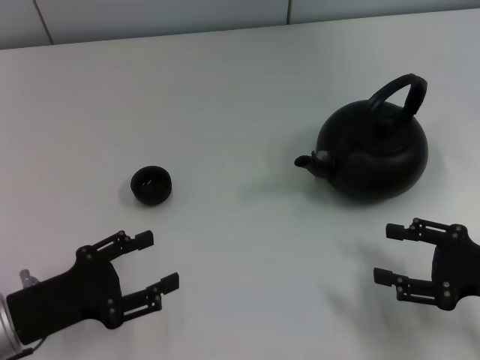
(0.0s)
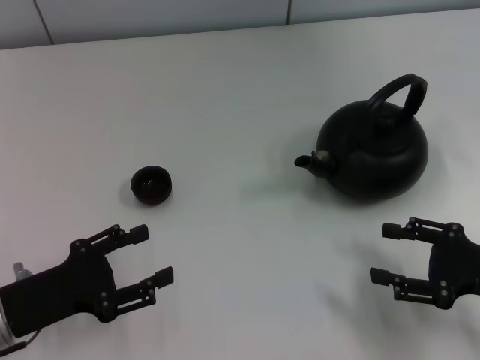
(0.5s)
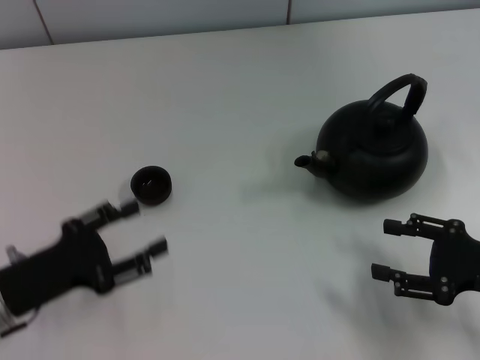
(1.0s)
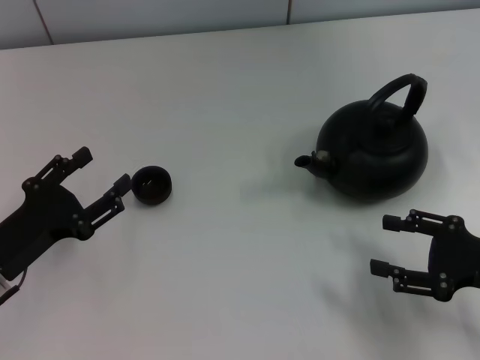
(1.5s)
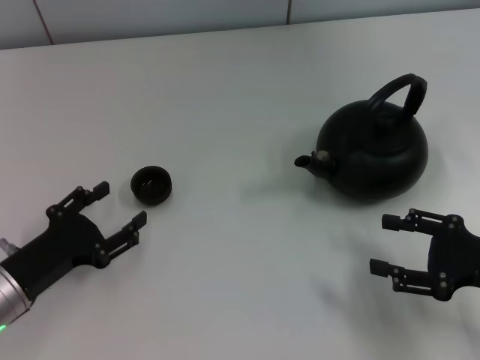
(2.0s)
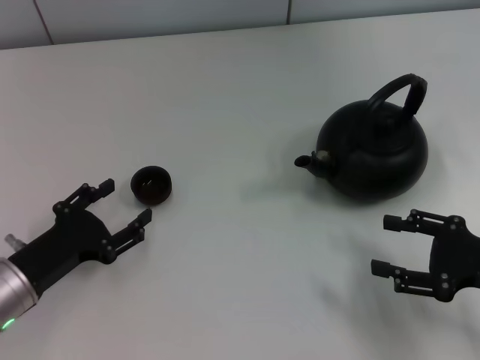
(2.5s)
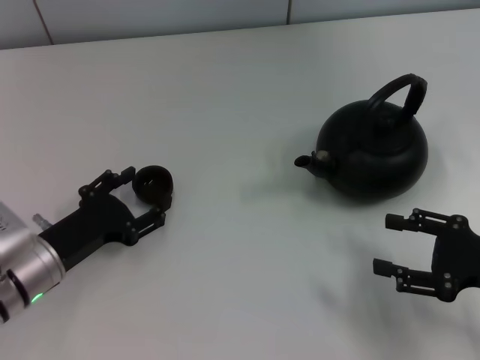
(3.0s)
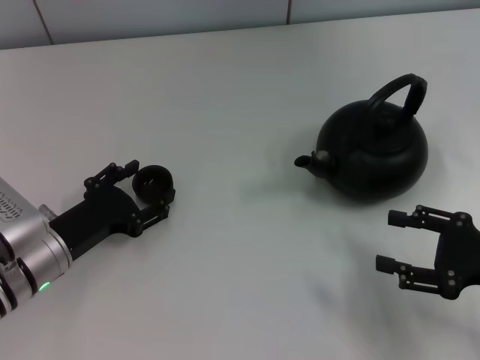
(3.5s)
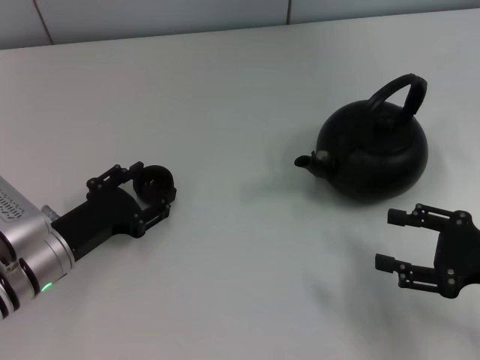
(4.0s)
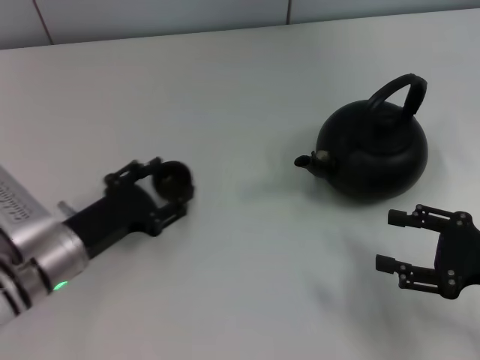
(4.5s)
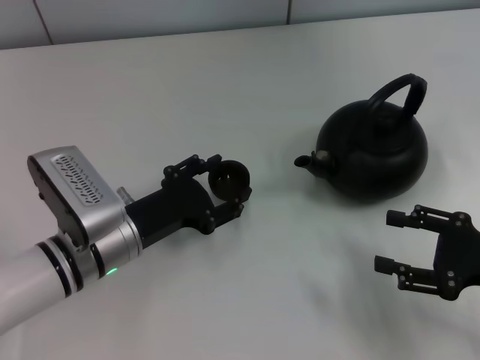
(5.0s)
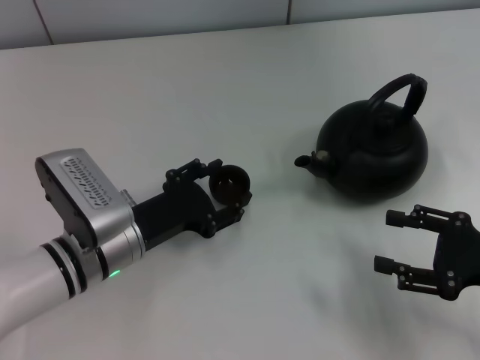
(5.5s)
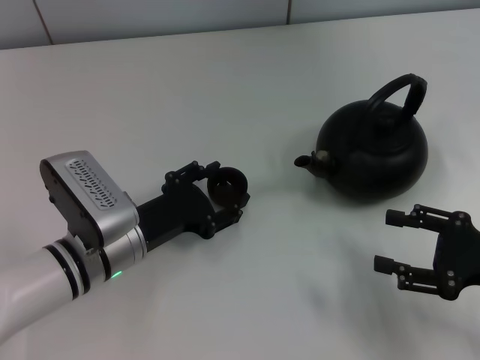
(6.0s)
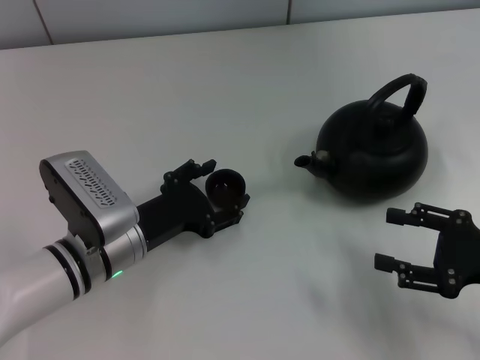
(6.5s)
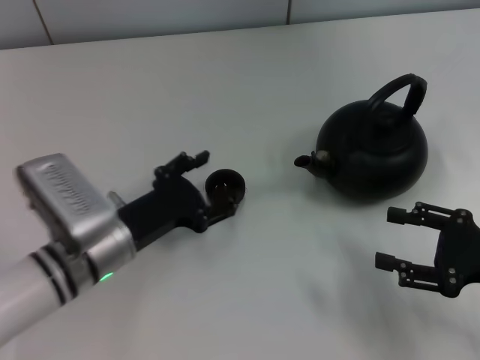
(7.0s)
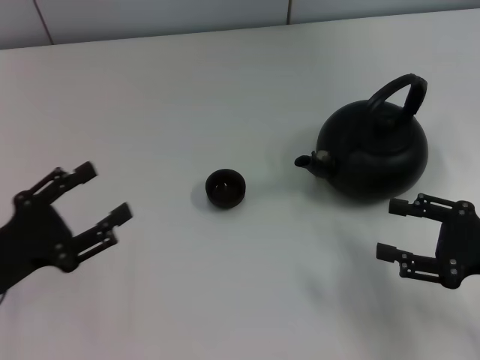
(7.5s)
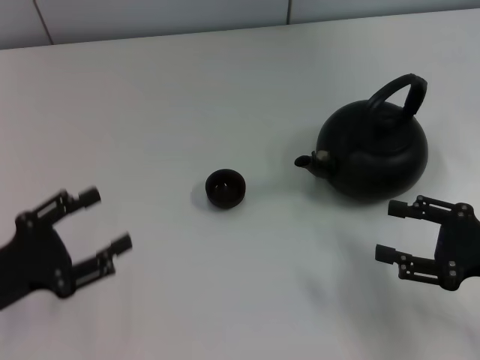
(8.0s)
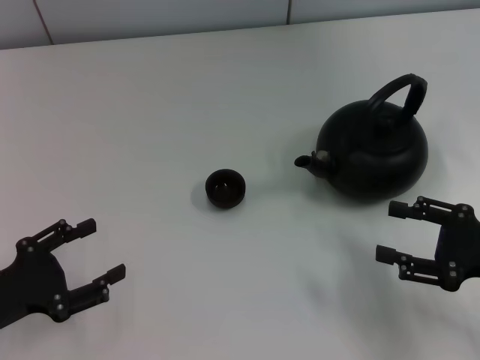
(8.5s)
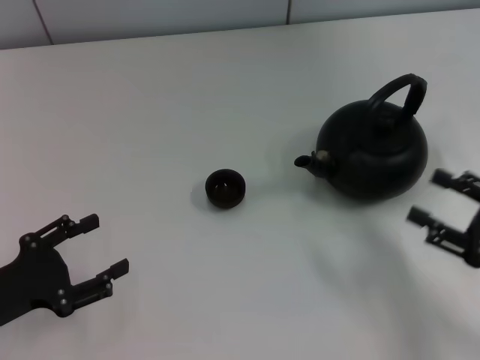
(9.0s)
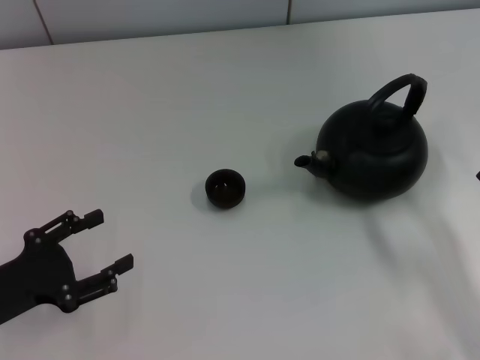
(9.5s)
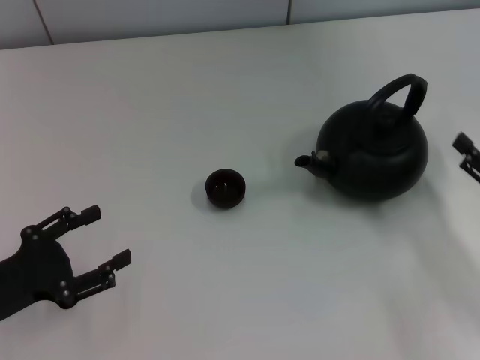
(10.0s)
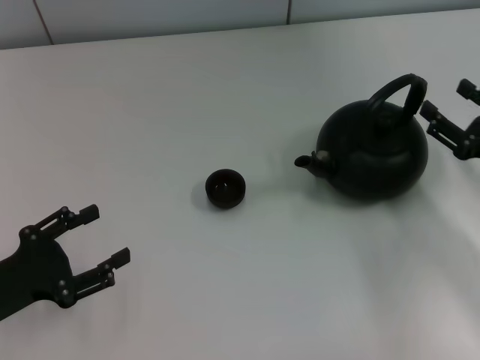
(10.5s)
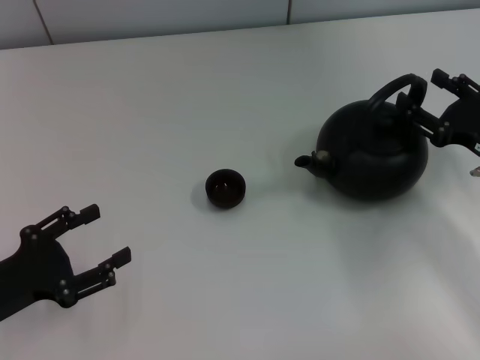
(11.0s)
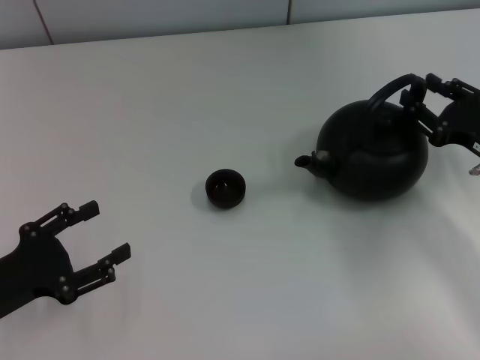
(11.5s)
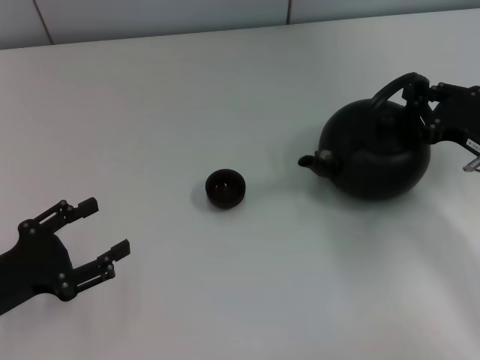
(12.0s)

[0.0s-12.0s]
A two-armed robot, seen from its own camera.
Task of the whole recording: Grasp the handle of the teapot with one hand and pour tea into the teacup.
Step, 0.0s to 4.5s: Pick up the teacup with the left gripper.
Step, 5.0s to 7.0s: Place the teacup in the center of view with the left gripper.
2.0s to 4.0s: The left gripper changes place by approximately 5 cm.
4.0s to 6.0s: The left gripper is displaced to the right by about 5 cm.
6.0s to 8.0s: The left gripper goes about 15 cm to the left and backward.
10.0s to 12.0s: The right gripper goes approximately 10 cm forward, and closes.

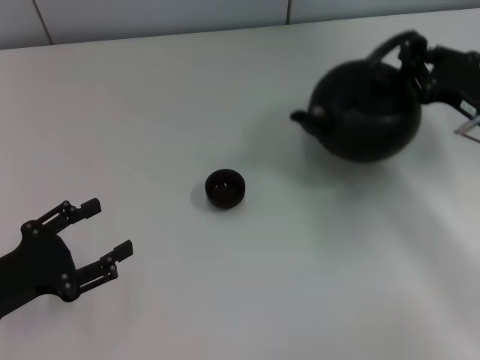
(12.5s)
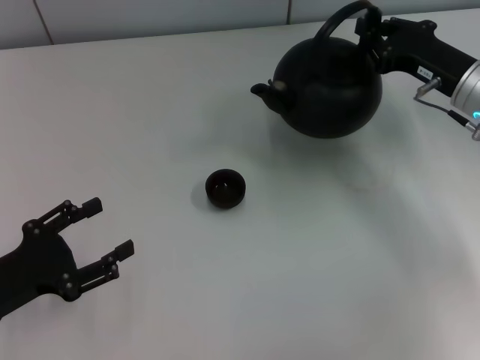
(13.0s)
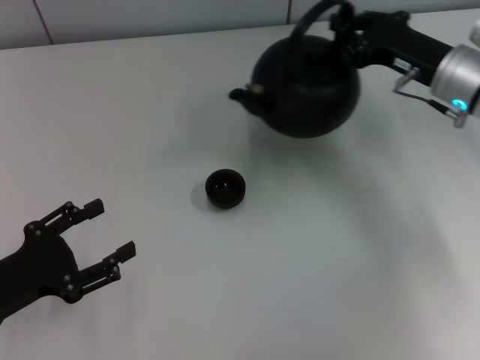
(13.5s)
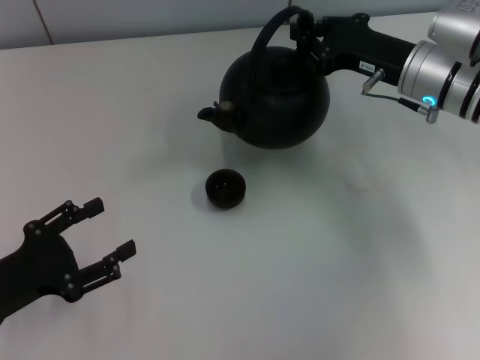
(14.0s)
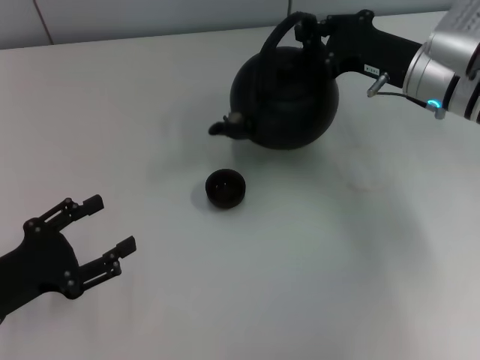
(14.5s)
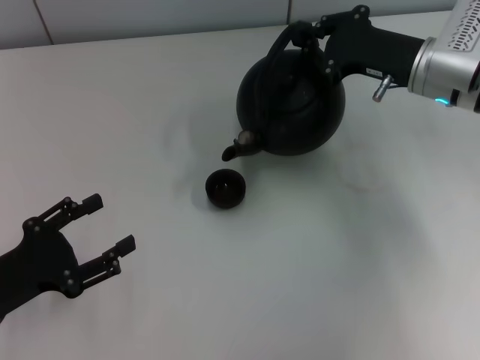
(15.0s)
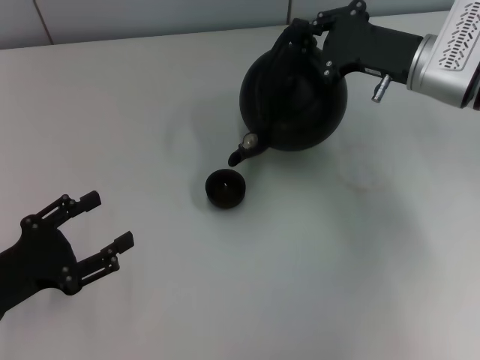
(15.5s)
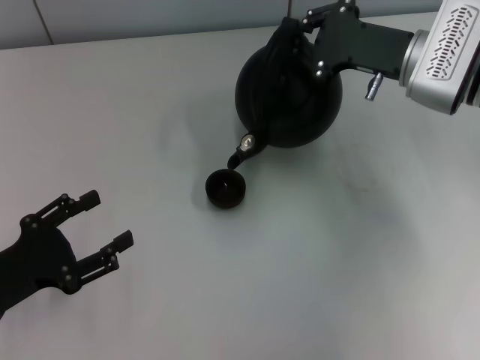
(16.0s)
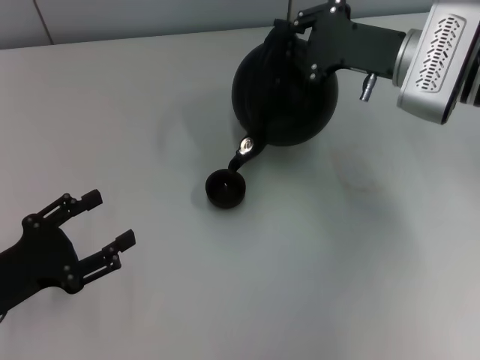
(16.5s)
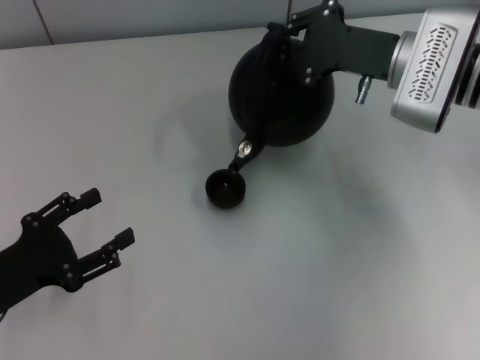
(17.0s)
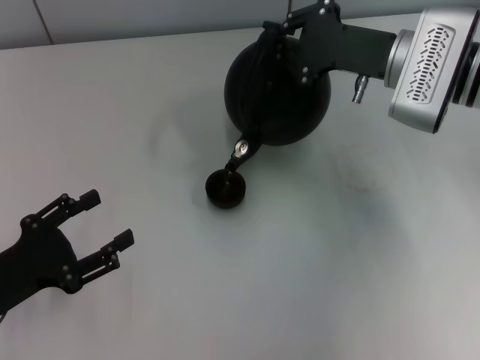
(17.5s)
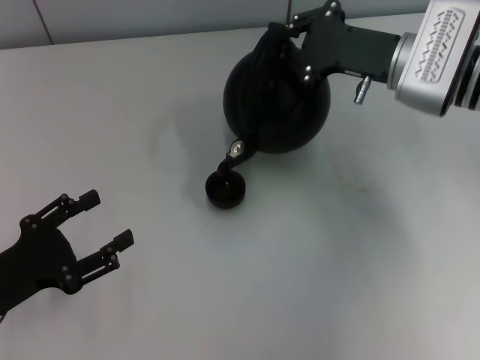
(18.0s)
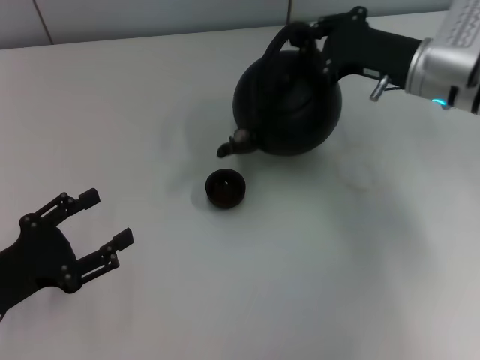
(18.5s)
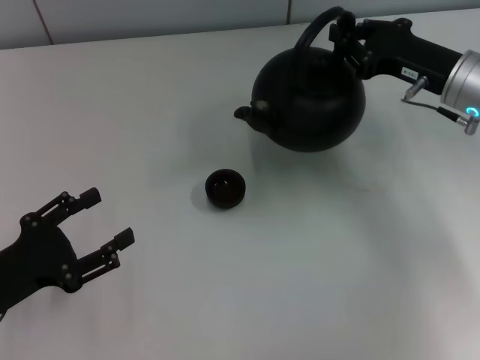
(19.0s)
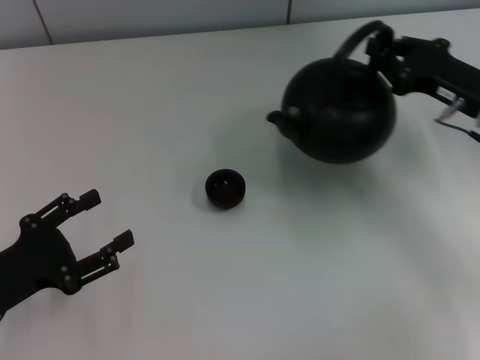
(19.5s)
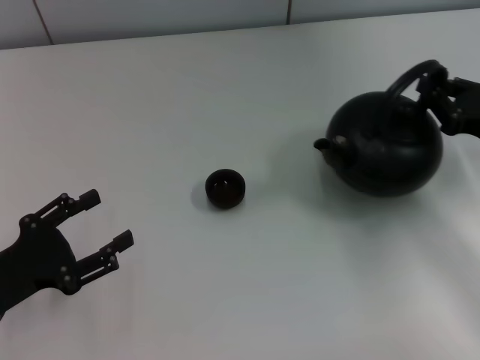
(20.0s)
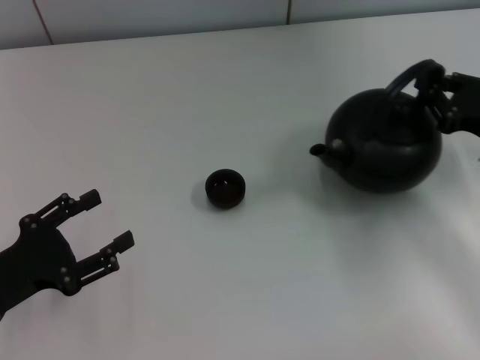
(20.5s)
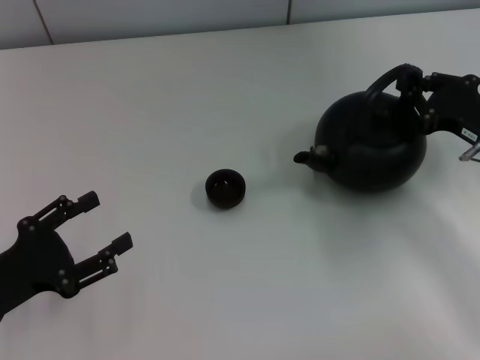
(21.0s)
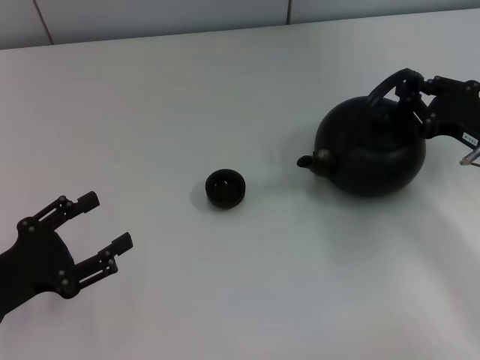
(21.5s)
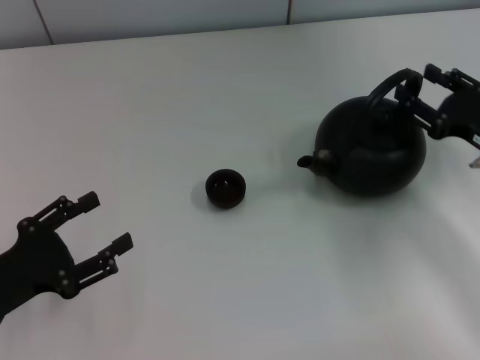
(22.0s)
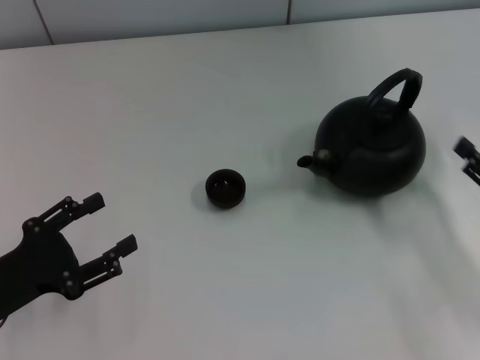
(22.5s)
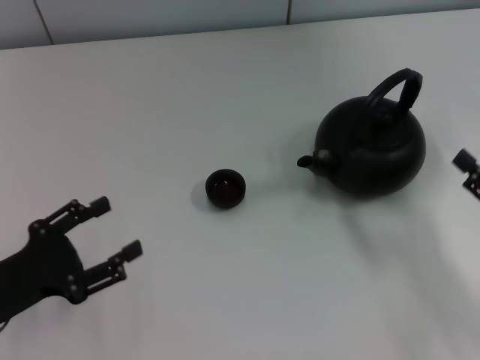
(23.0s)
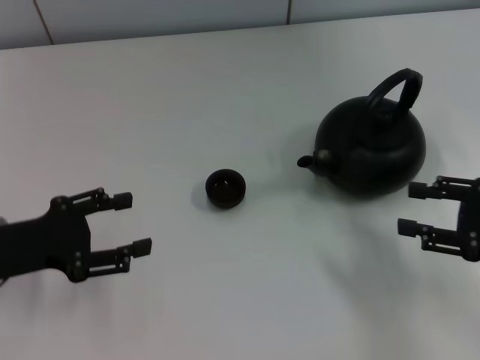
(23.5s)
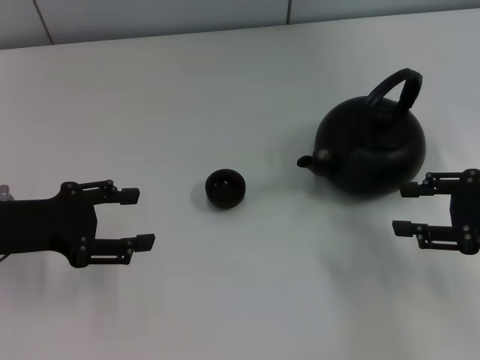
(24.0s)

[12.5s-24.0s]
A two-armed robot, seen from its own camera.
Task of the whole recording: Grasp the handle of the teapot with one hand and pour tea into the teacup.
Step, 19.5s to 22.5s: Put down the teapot with the right gripper.
12.5s to 14.5s: The right gripper heads to the left and forward, covering roughly 10 cm.
18.5s to 20.0s: The right gripper travels backward and to the right by roughly 15 cm.
20.0s to 22.0s: The right gripper opens.
22.0s to 24.0s: The left gripper is displaced forward and upward by some 10 cm. The right gripper opens.

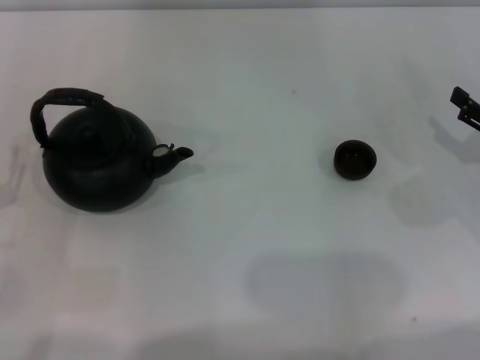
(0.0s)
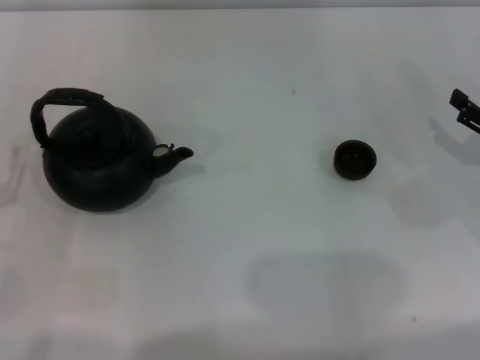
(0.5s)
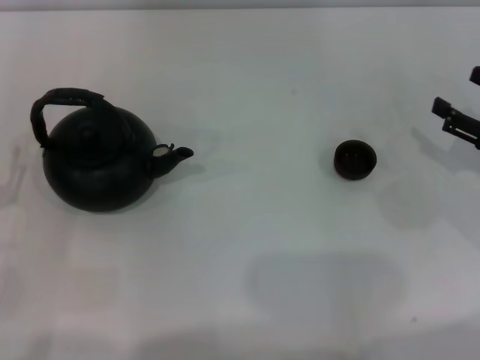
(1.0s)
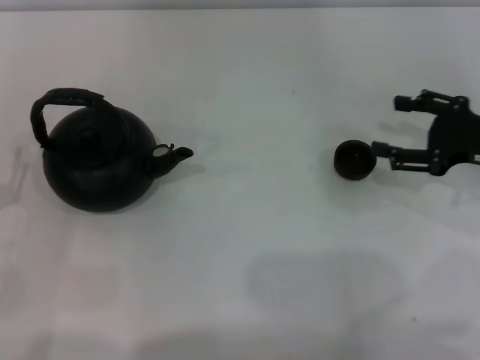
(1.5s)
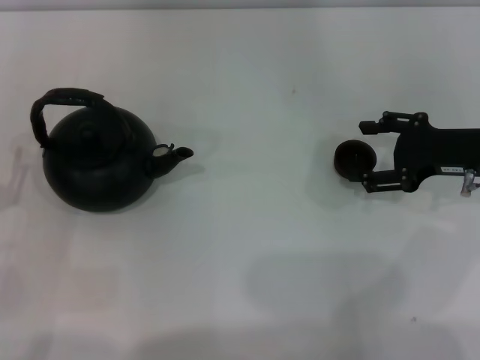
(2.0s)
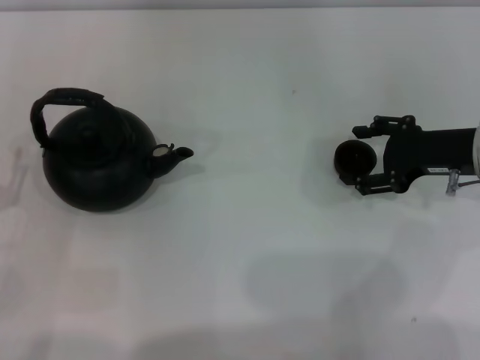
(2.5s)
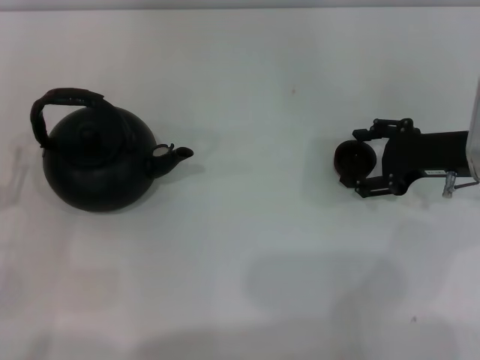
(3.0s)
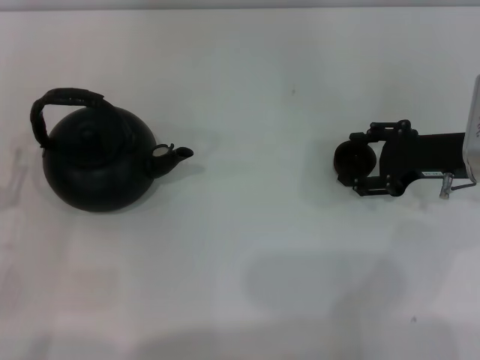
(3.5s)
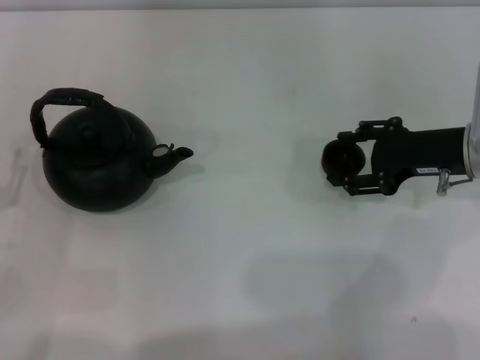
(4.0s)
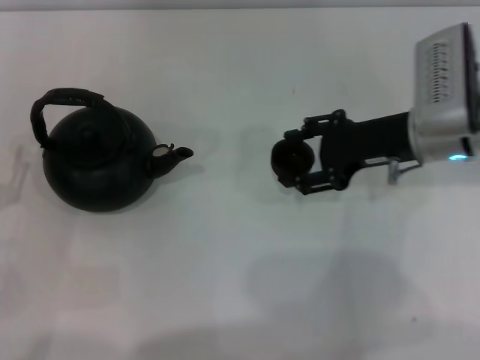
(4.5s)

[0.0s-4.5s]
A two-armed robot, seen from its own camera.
Task of the whole recording: Grasp the handle of the teapot with one hand and pour tea into the teacup.
Step, 0.0s to 4.0s: Pick up the teacup with the right gripper.
0.0s to 2.0s: The right gripper moves to the left, about 5 cm.
2.0s to 4.5s: The right gripper heads to the left, covering about 10 cm, and closes up.
